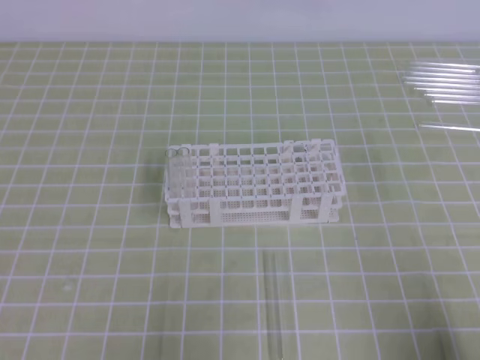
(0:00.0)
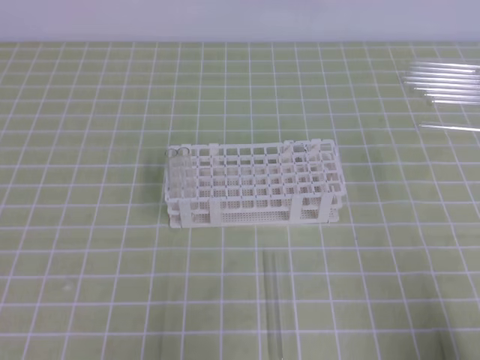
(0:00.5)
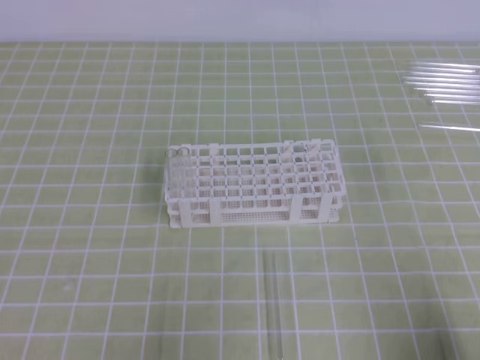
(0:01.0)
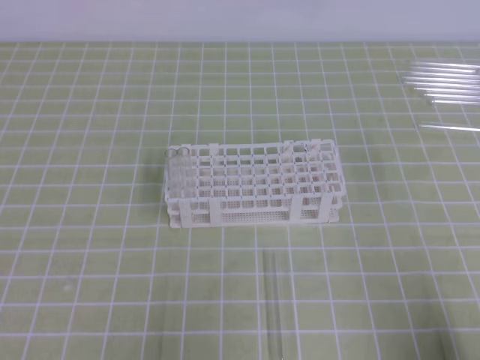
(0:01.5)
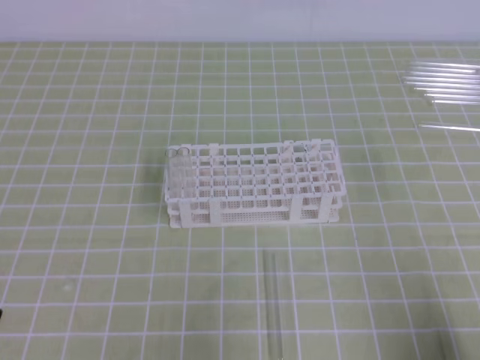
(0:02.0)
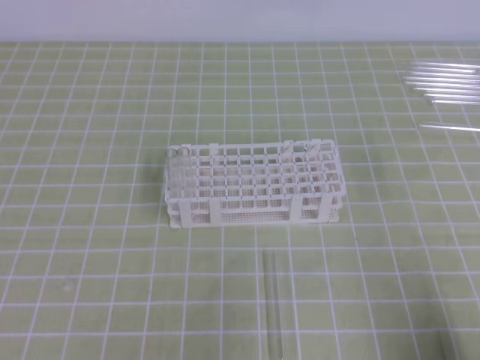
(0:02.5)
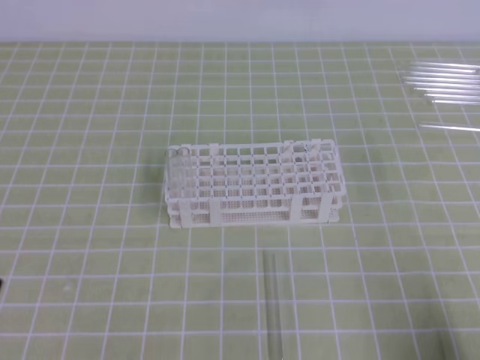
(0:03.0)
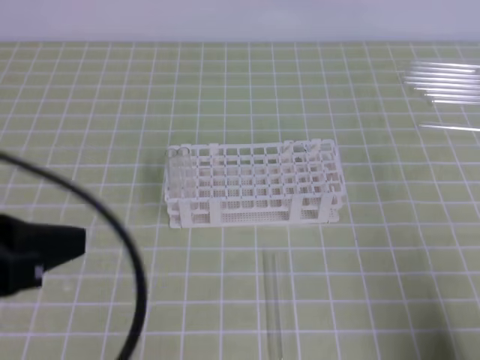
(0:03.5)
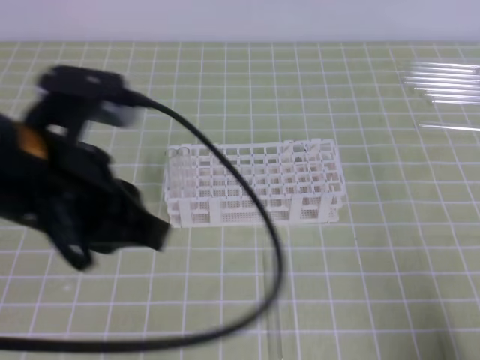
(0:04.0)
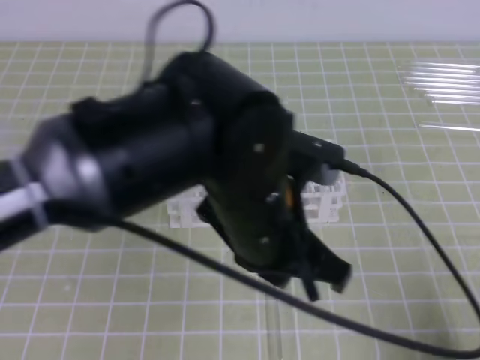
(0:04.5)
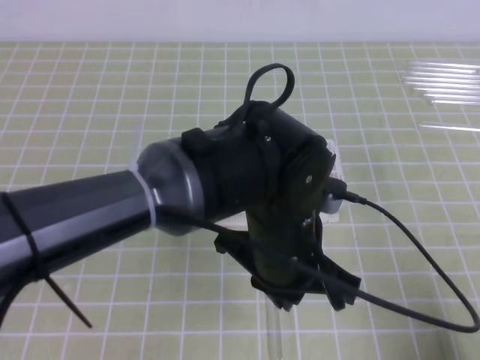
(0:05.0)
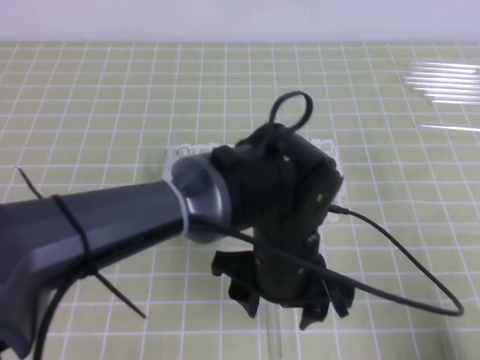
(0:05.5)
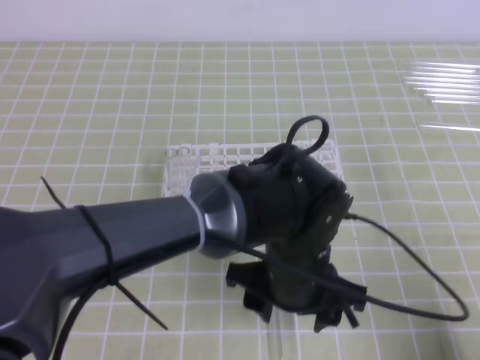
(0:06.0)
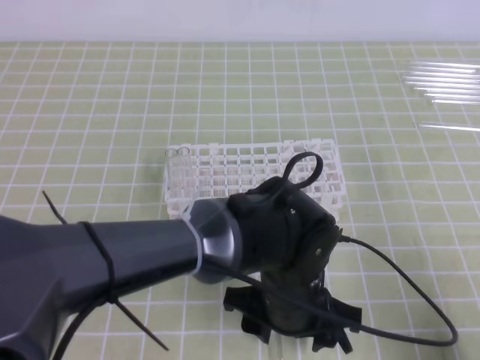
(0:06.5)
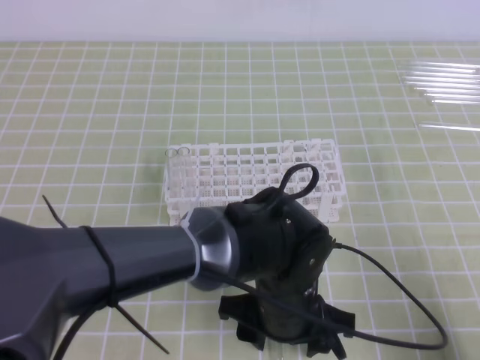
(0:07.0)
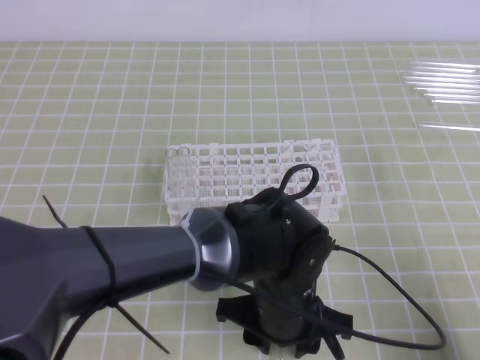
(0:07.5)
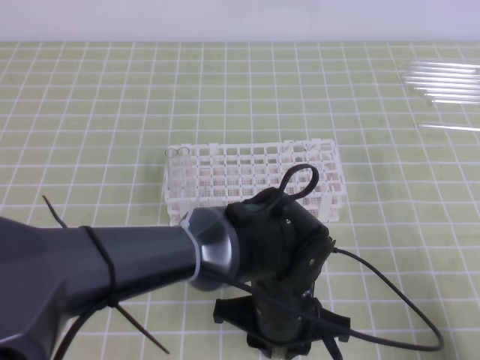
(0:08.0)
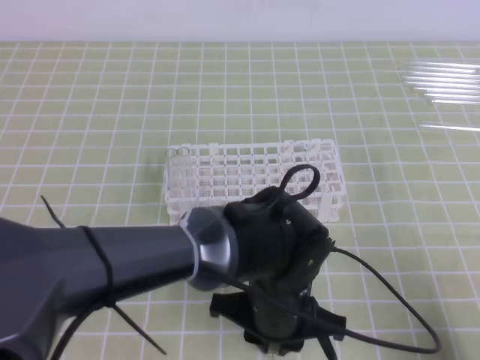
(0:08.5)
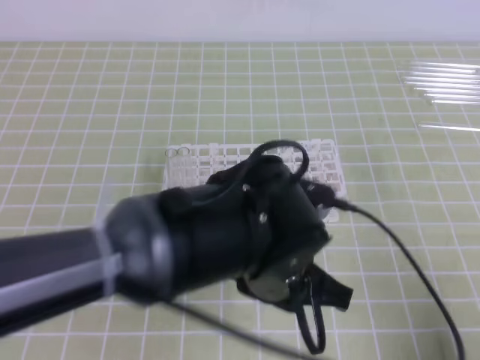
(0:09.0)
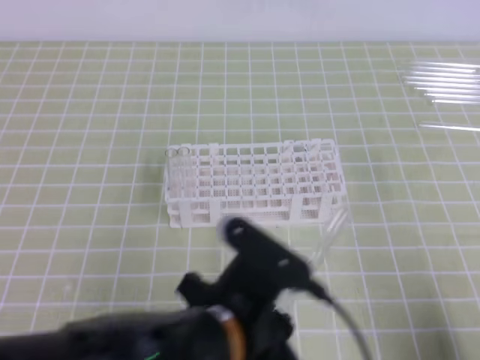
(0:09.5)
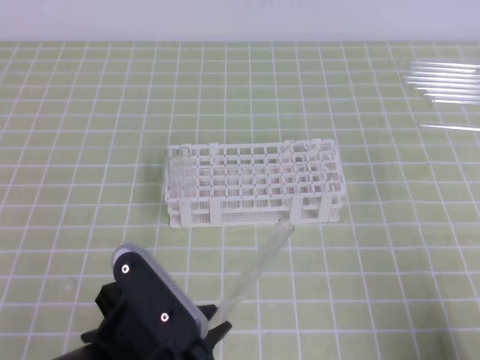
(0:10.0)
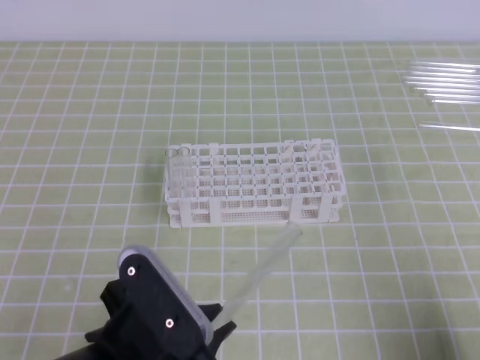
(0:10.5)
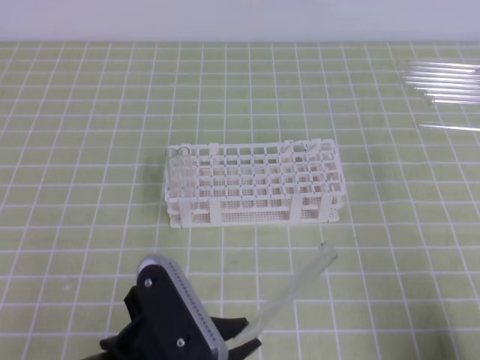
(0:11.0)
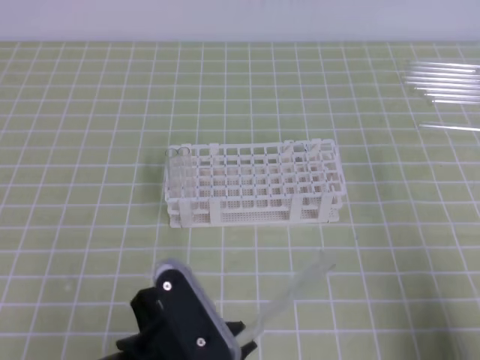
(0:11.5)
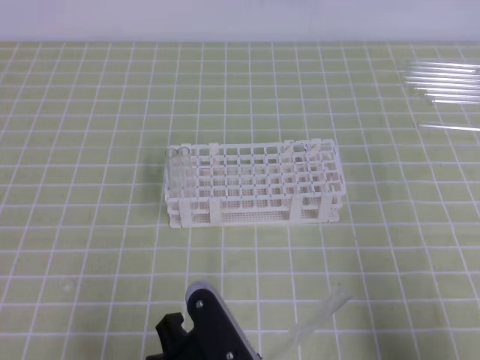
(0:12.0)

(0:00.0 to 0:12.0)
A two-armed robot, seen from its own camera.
0:02.0 - 0:04.0: The left gripper is displaced upward, forward and to the right by approximately 25 cm.
0:04.0 - 0:06.0: The left gripper moves to the right and downward, some 25 cm, and opens its fingers.
0:06.0 - 0:08.0: The left gripper closes up.
0:08.0 - 0:10.0: The left gripper goes approximately 20 cm to the left, backward and upward.

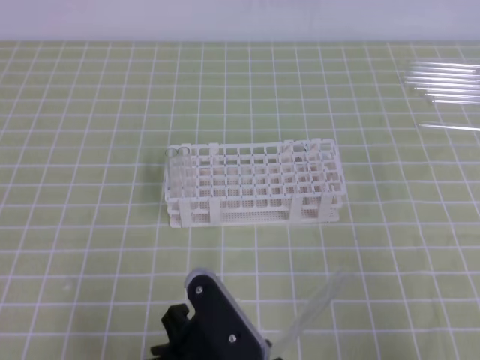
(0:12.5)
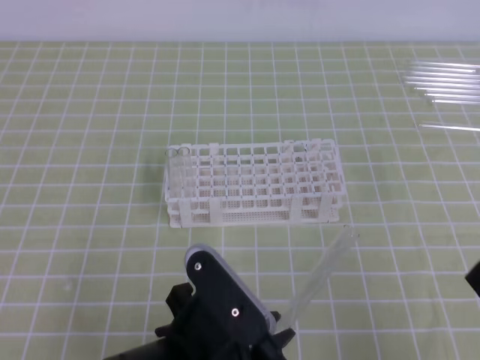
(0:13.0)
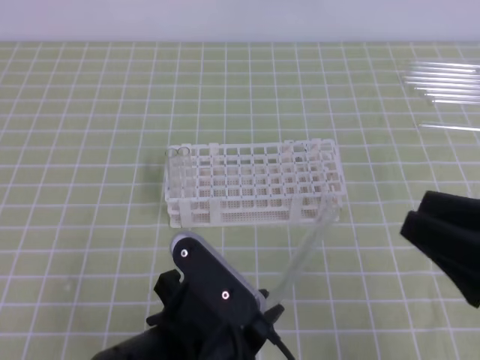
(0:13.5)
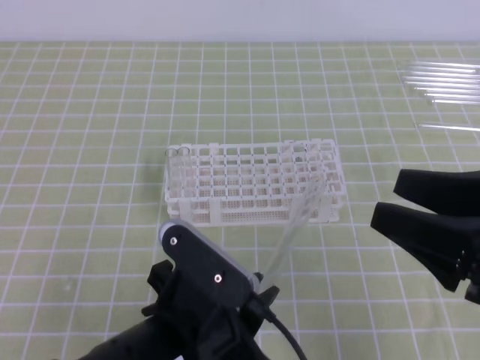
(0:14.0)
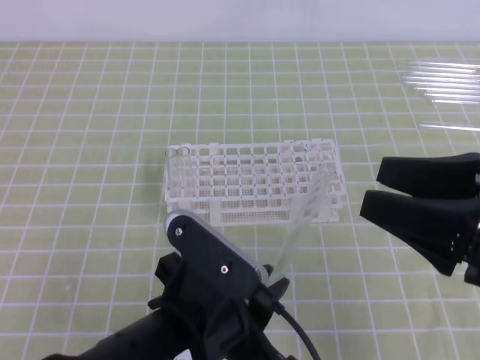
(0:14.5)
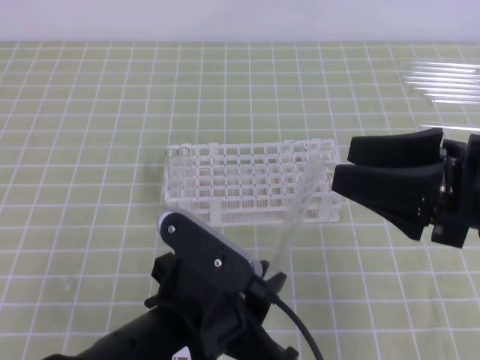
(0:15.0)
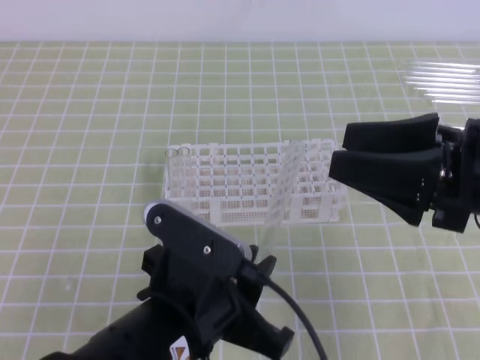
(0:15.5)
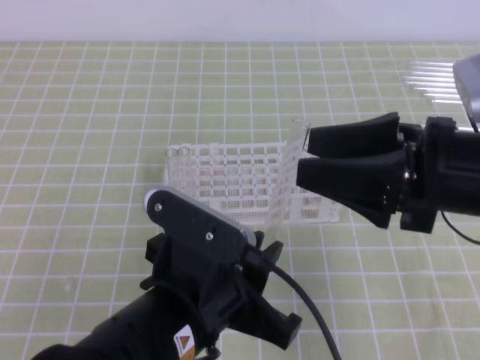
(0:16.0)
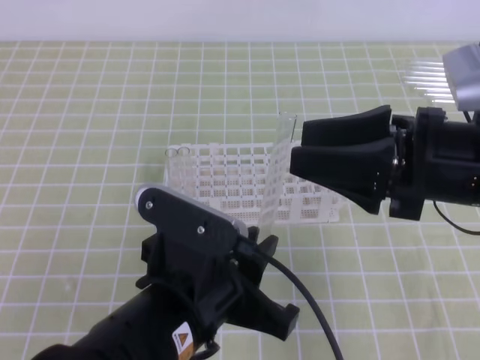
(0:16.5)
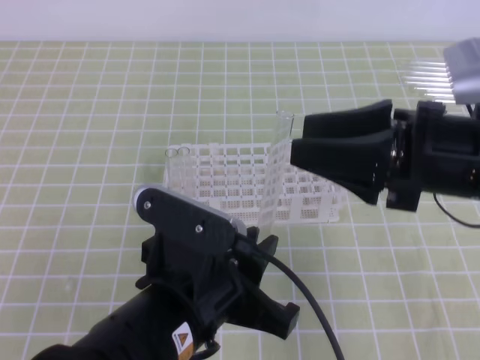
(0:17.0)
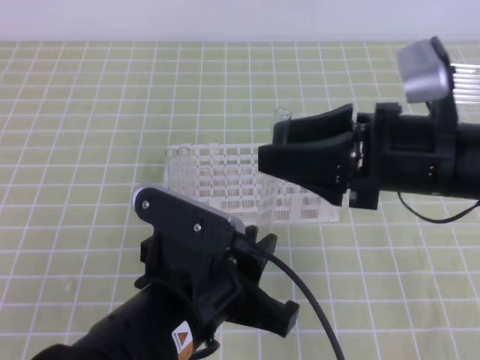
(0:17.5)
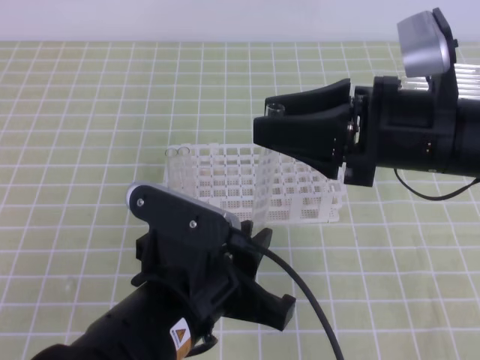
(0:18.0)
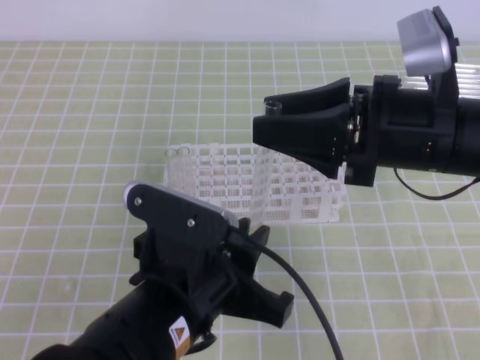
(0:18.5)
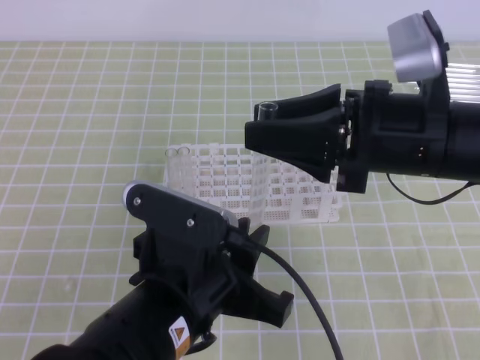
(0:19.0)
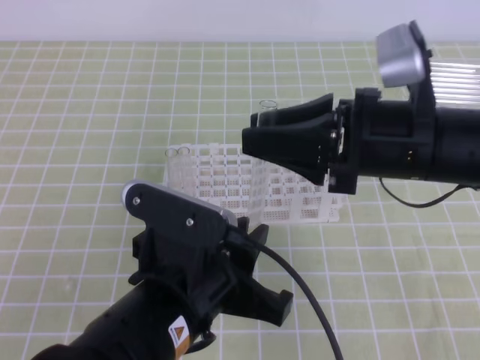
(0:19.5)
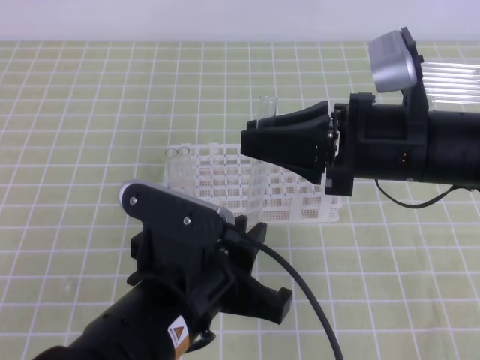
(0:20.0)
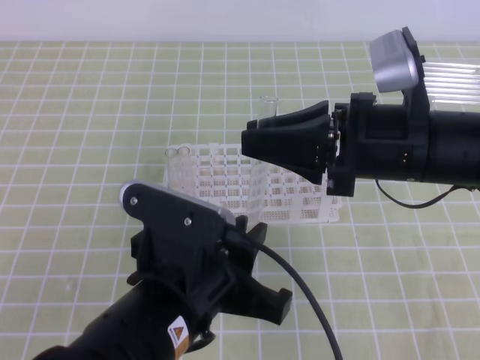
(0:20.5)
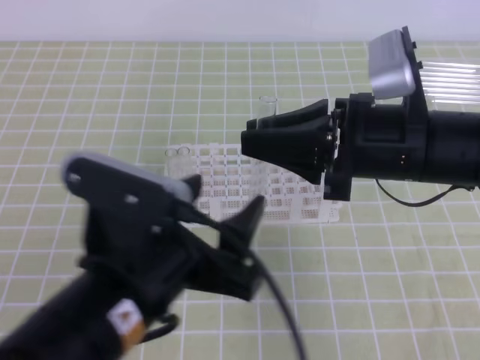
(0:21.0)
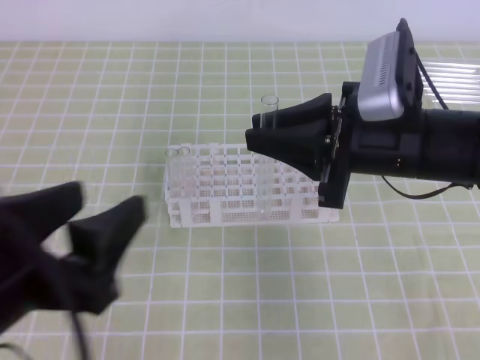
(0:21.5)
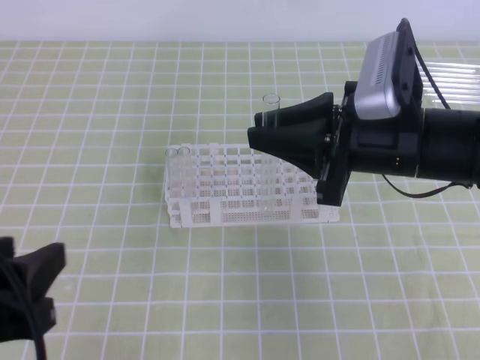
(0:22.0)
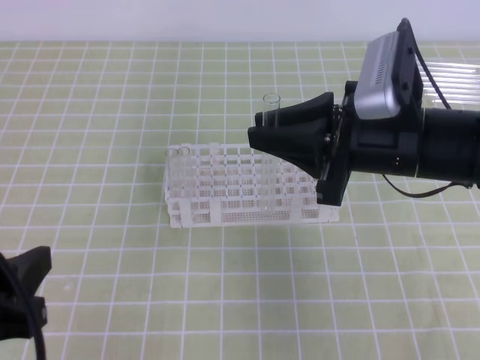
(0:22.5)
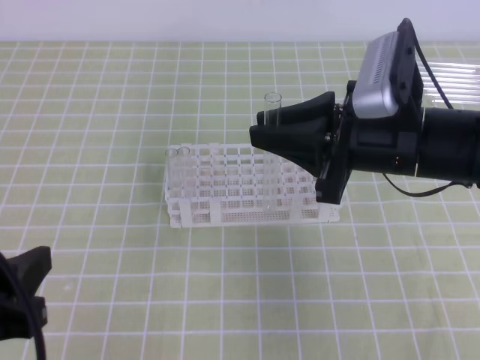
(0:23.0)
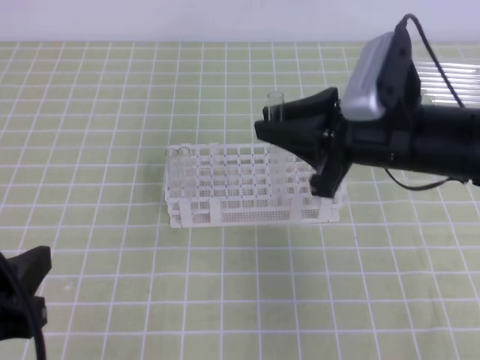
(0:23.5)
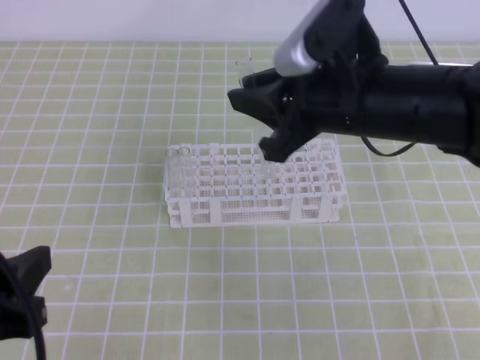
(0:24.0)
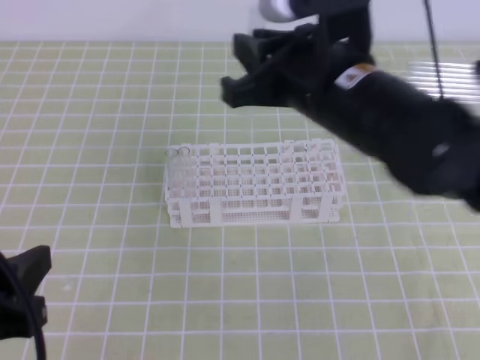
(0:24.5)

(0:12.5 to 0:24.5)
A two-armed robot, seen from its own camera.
0:12.5 - 0:14.5: The right gripper is displaced forward and upward by approximately 15 cm, and opens up.
0:14.5 - 0:16.5: The right gripper goes some 5 cm forward.
0:16.5 - 0:18.5: The grippers make only small movements.
0:18.5 - 0:20.5: The right gripper closes its fingers.
0:20.5 - 0:22.5: The left gripper shifts approximately 15 cm to the left, and opens its fingers.
0:22.5 - 0:24.5: The right gripper is displaced to the left by approximately 5 cm.

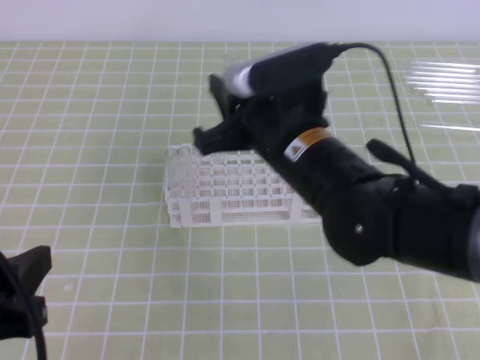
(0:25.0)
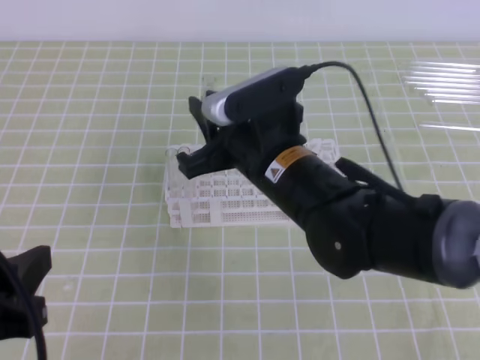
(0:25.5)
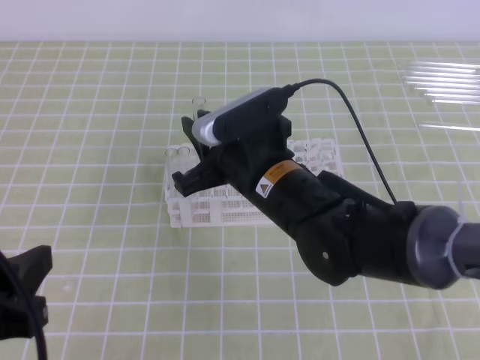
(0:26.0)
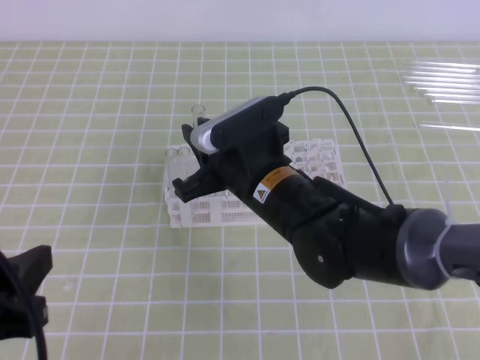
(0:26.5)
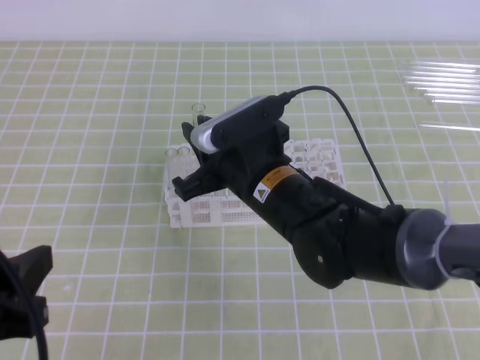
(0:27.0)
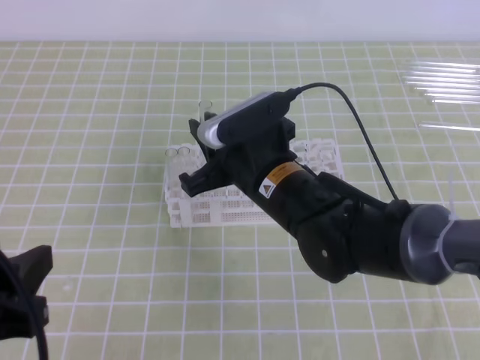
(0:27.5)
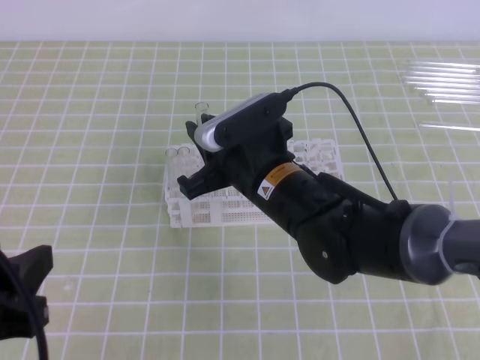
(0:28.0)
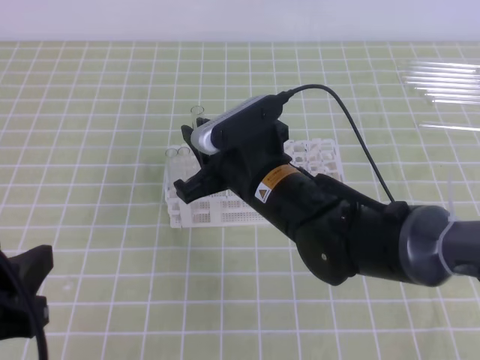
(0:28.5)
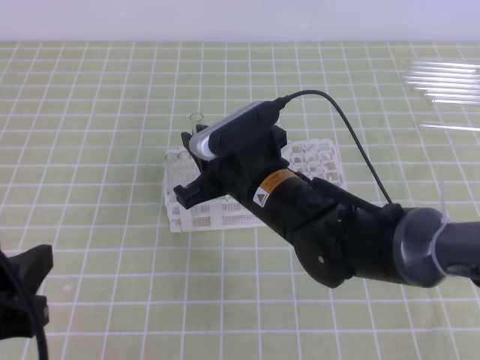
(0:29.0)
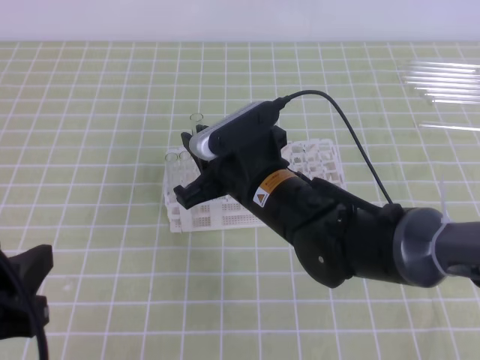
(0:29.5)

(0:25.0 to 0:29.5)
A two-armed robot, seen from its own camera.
0:25.0 - 0:27.0: The right gripper travels downward by some 5 cm.
0:27.0 - 0:29.5: Both grippers stay about where they are.
